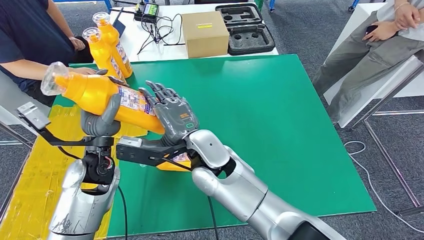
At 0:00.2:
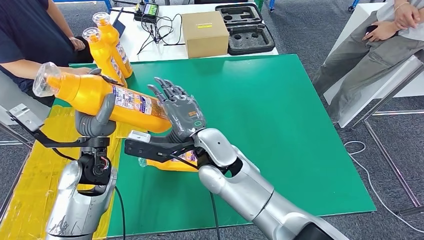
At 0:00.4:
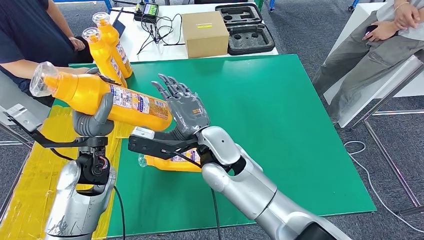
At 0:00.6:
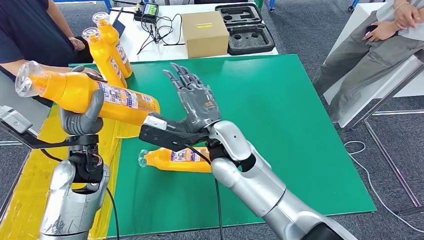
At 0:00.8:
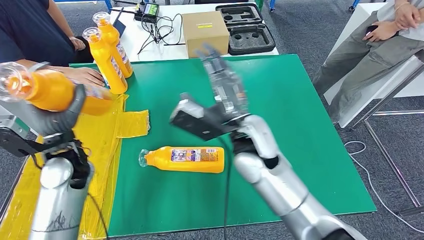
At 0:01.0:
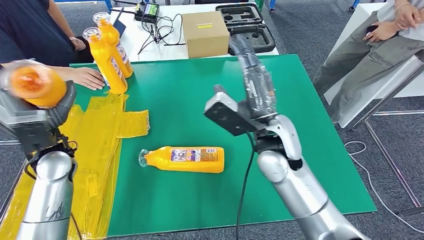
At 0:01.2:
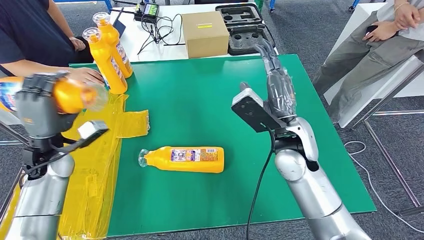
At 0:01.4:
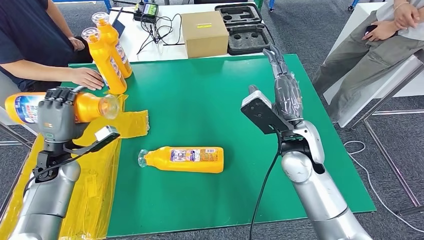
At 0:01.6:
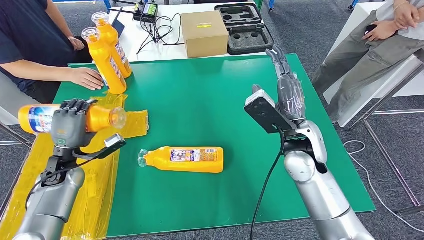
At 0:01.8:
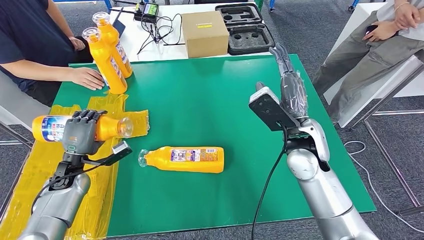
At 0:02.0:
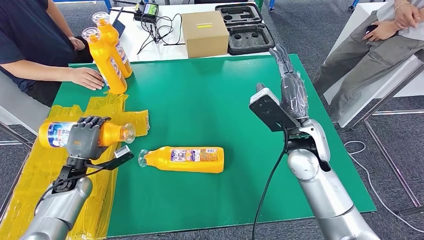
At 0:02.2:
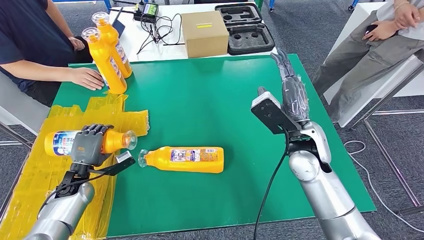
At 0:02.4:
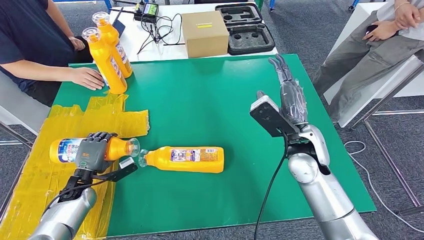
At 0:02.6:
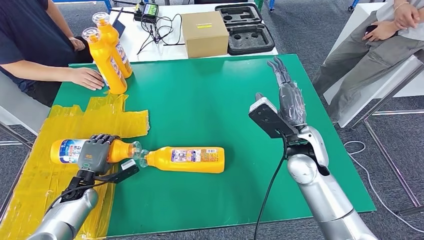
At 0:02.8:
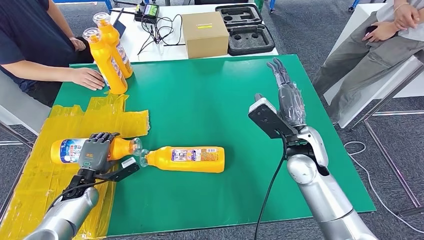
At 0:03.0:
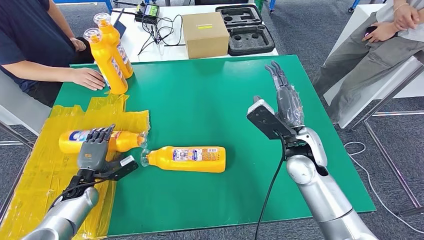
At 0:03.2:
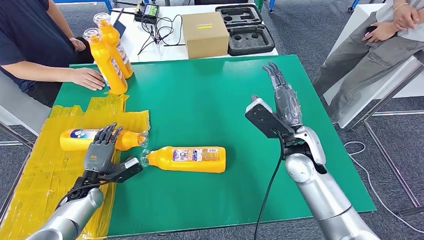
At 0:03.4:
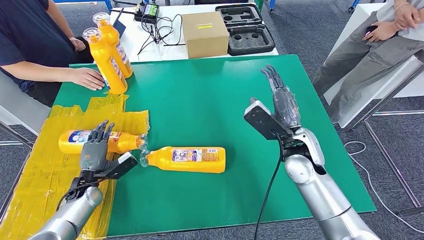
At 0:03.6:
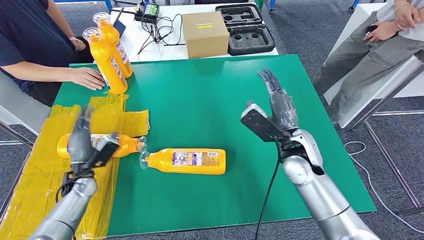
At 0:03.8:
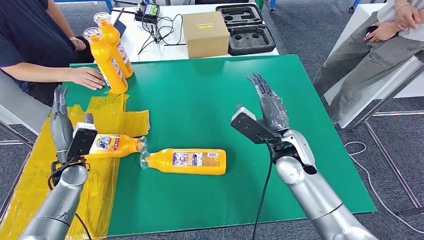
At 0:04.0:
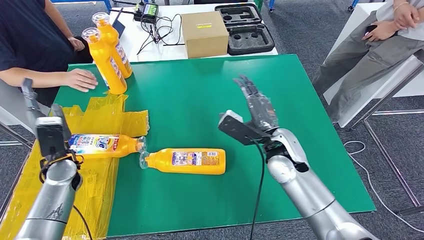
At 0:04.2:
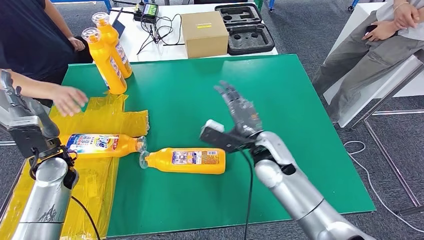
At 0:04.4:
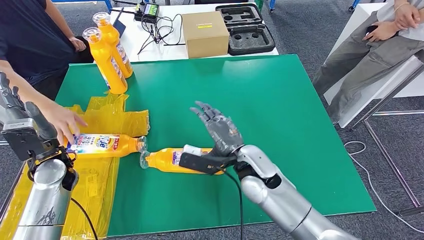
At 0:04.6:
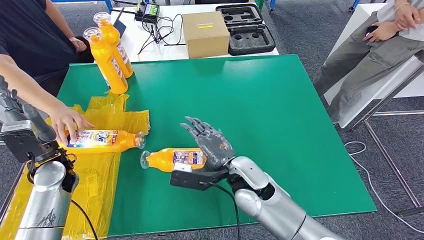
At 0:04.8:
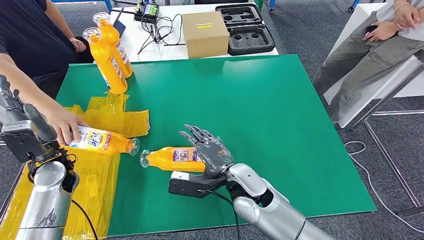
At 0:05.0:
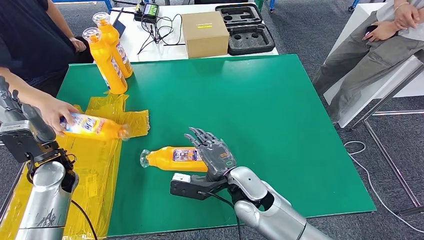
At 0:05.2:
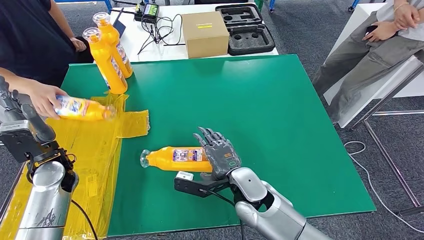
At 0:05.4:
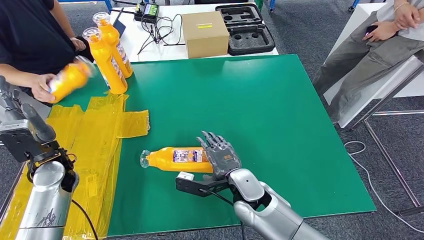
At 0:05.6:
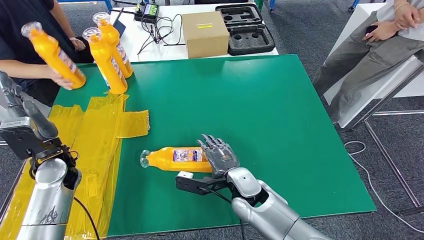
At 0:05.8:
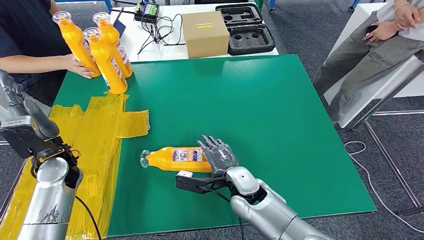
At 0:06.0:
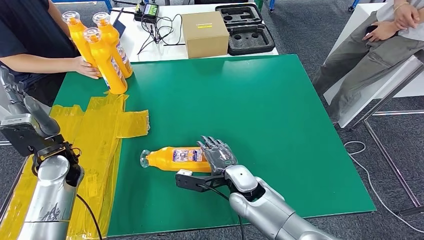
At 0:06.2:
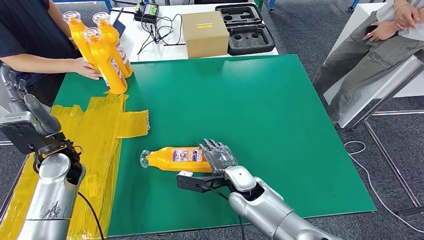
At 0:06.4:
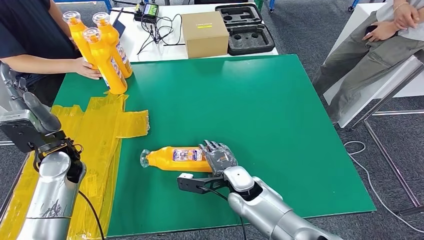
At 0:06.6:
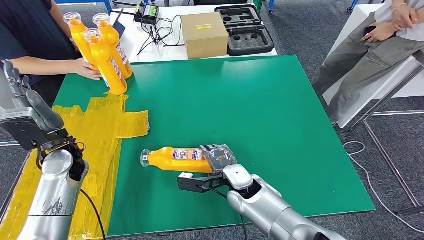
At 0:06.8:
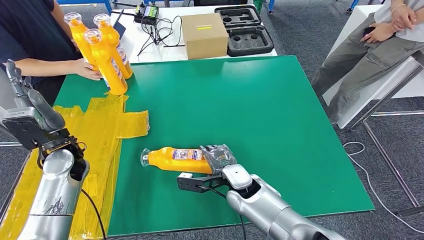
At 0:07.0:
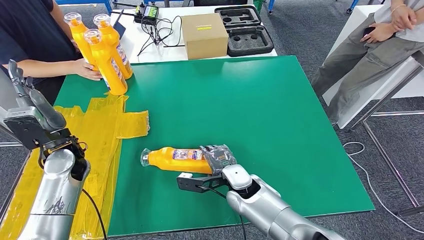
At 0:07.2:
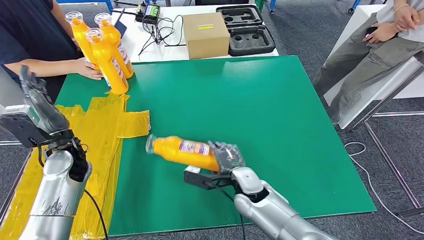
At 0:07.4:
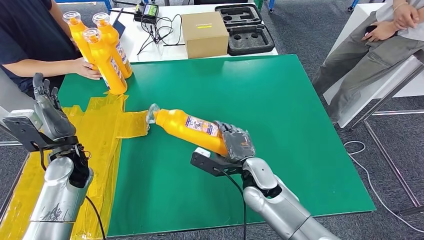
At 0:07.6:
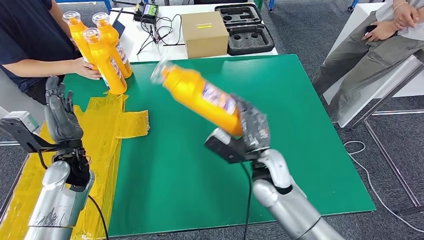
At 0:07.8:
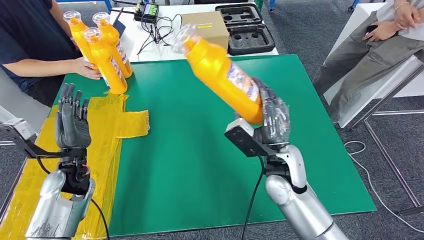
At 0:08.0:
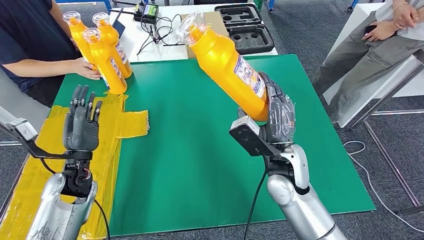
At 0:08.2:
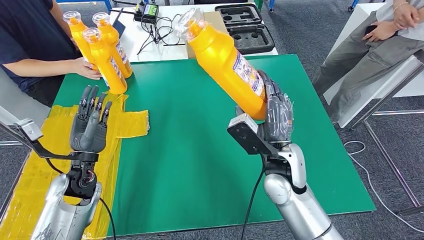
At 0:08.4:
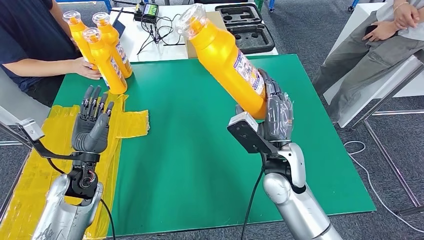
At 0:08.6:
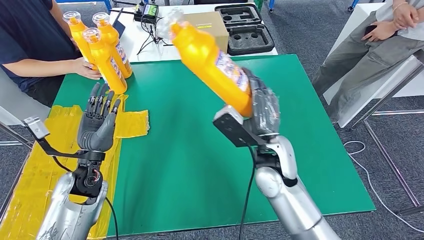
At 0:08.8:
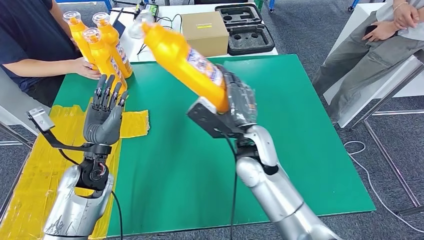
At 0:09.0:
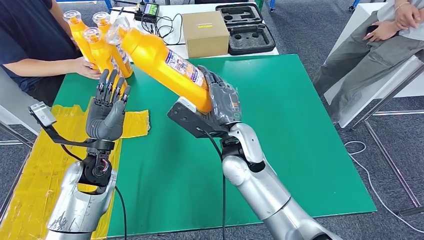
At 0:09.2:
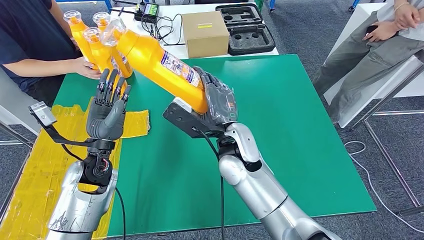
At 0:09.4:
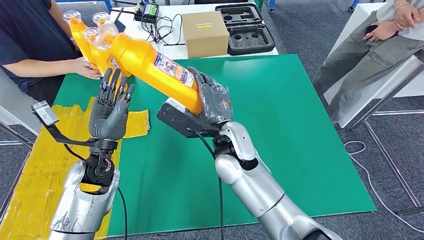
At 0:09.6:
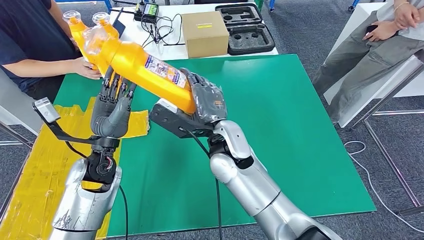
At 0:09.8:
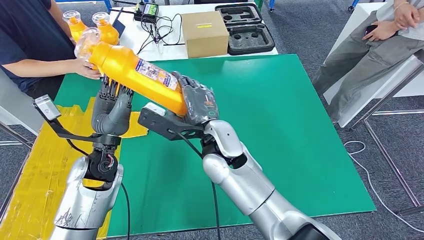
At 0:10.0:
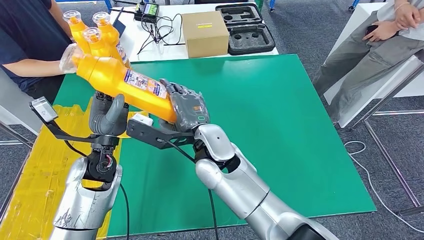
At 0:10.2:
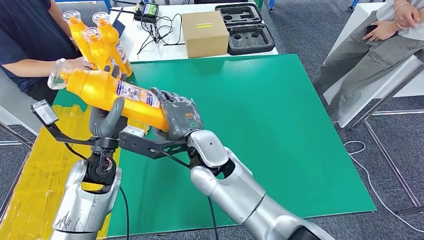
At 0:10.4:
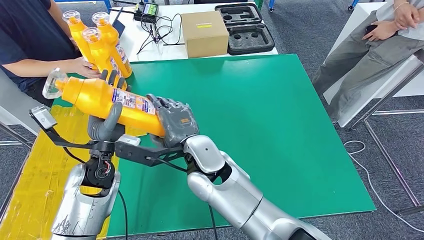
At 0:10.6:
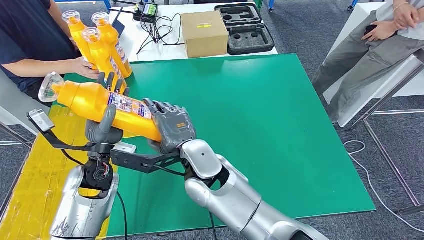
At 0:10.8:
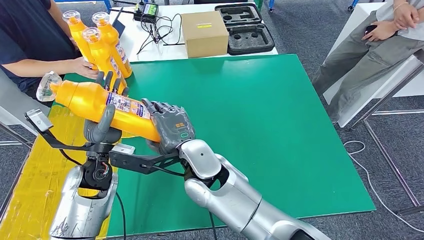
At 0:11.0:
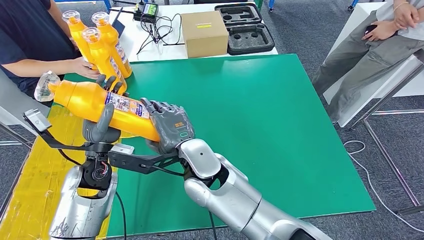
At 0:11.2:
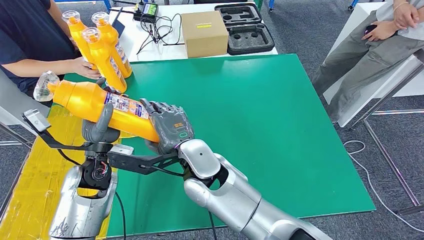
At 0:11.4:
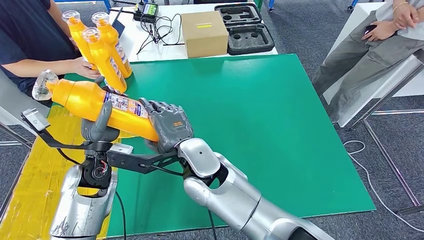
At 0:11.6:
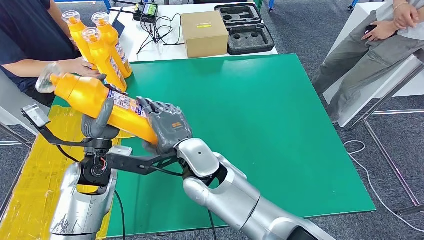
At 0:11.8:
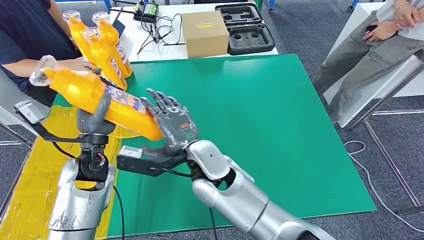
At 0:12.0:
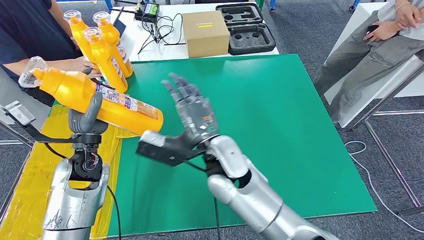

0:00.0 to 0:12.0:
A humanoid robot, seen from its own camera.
Step, 0:00.0 to 0:03.2: Flip the fast-moving consumer goods bottle to the front side.
Step, 0:06.8 to 0:11.8: Pick up the fast-moving consumer goods bottle from the table.

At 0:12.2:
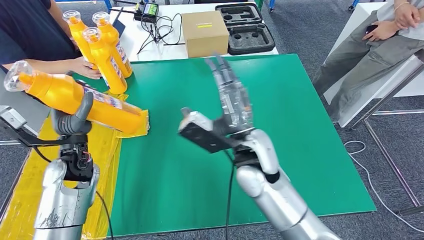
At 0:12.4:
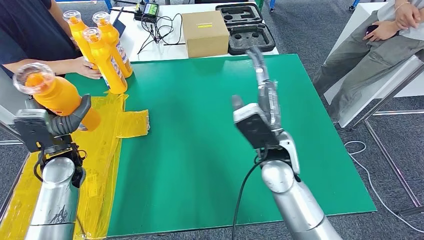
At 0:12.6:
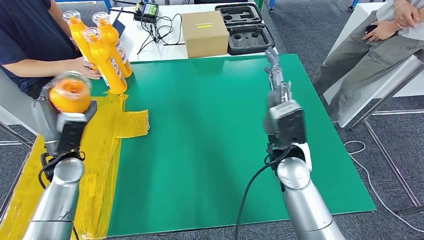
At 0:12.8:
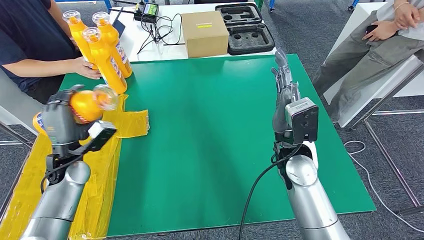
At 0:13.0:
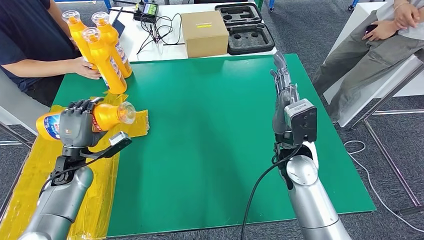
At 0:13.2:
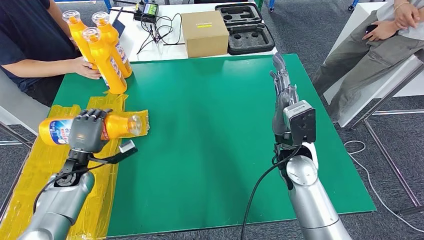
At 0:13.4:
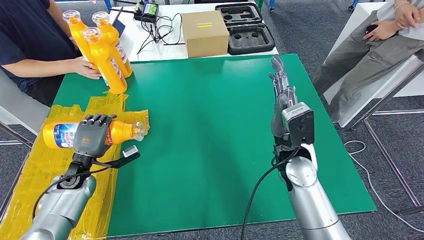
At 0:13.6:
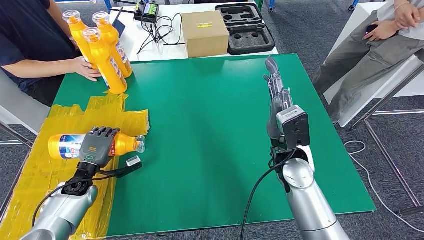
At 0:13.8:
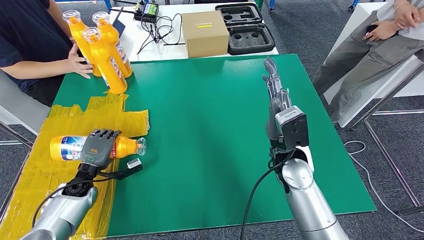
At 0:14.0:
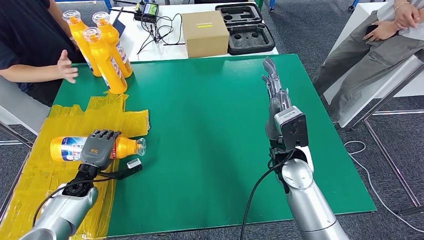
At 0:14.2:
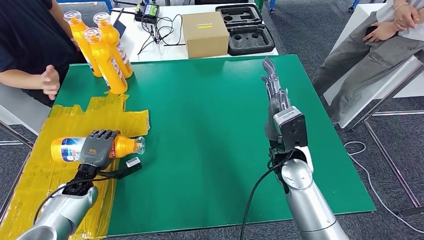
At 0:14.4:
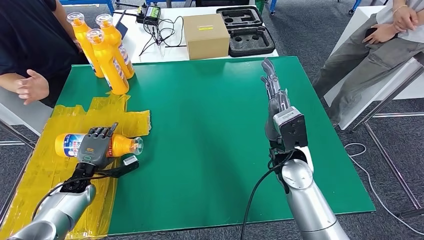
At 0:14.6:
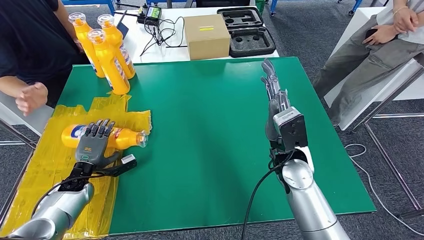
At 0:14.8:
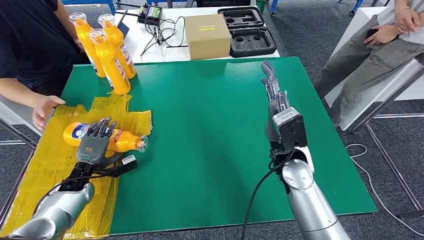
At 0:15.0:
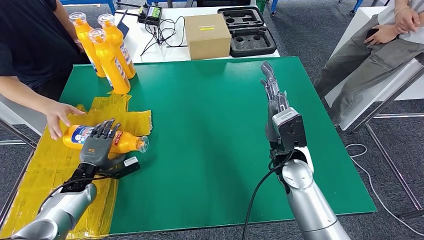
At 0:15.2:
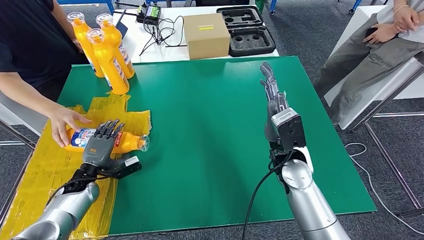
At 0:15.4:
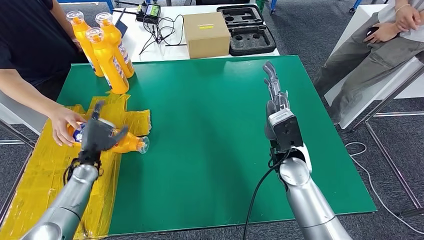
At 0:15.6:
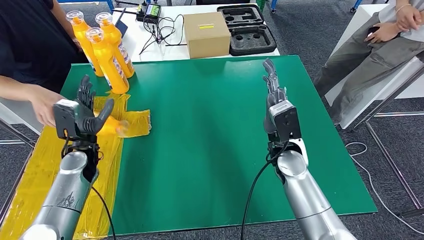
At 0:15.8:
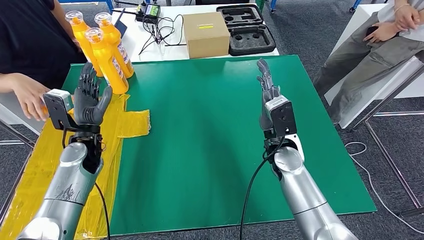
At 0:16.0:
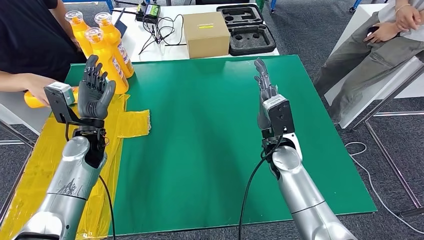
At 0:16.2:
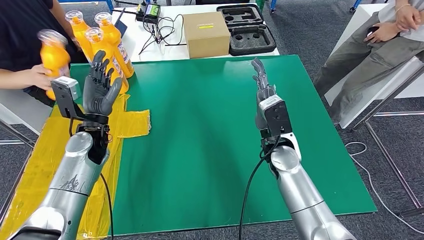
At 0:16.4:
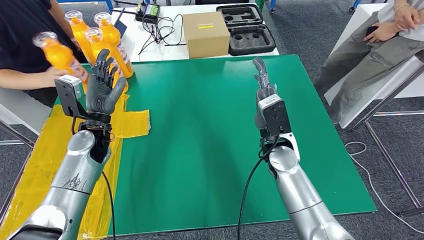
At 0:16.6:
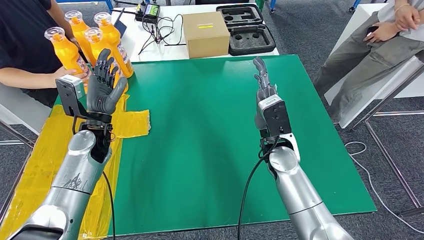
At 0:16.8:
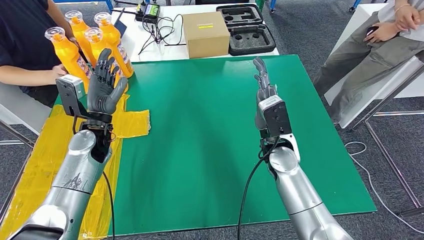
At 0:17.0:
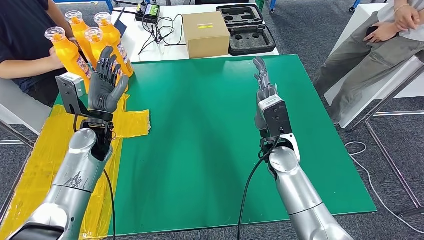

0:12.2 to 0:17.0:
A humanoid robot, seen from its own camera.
Step, 0:12.2 to 0:17.0: Flip the fast-moving consumer goods bottle to the front side.
